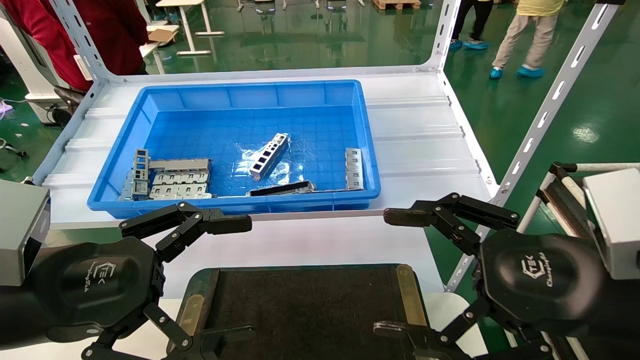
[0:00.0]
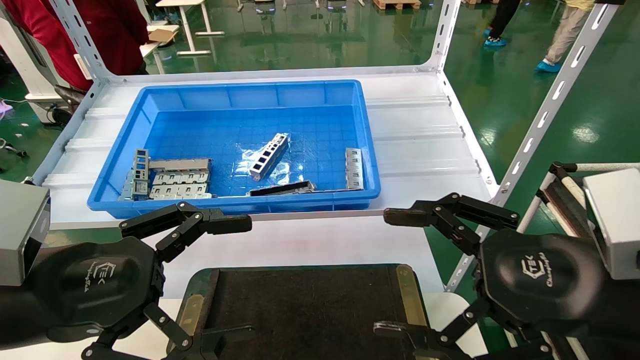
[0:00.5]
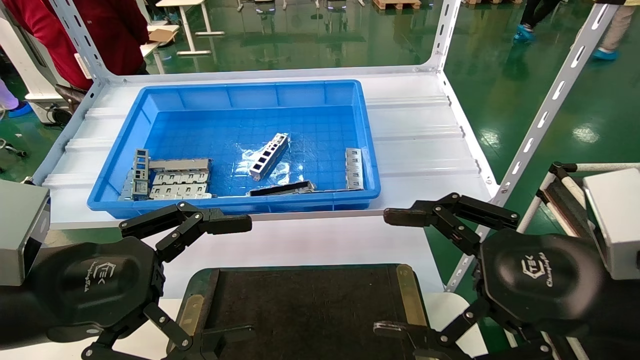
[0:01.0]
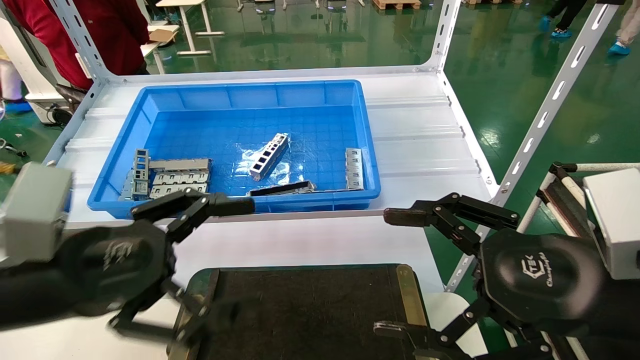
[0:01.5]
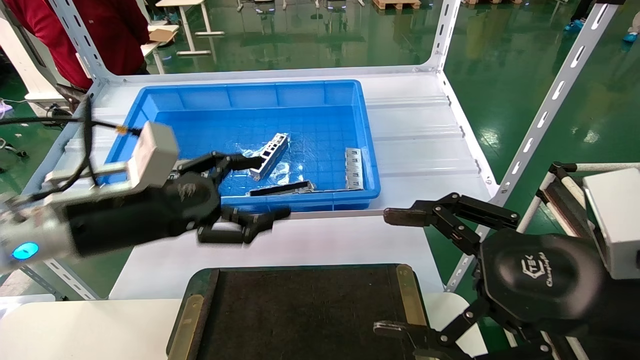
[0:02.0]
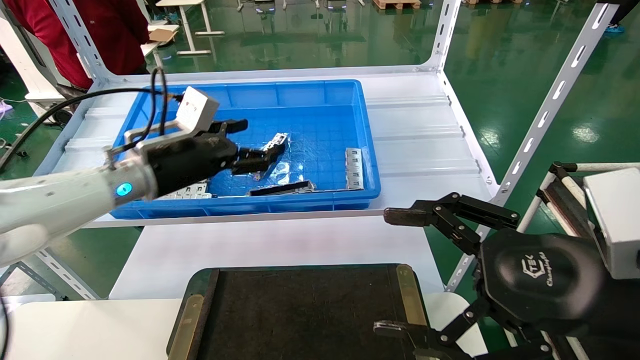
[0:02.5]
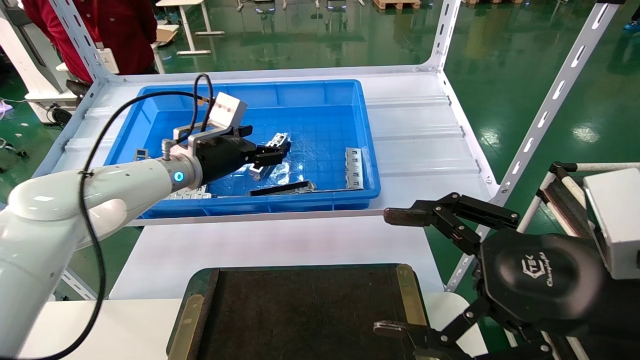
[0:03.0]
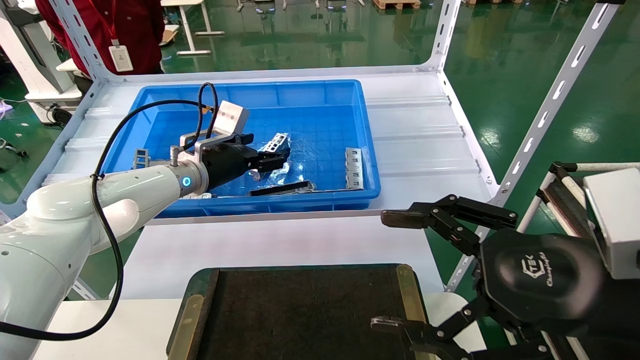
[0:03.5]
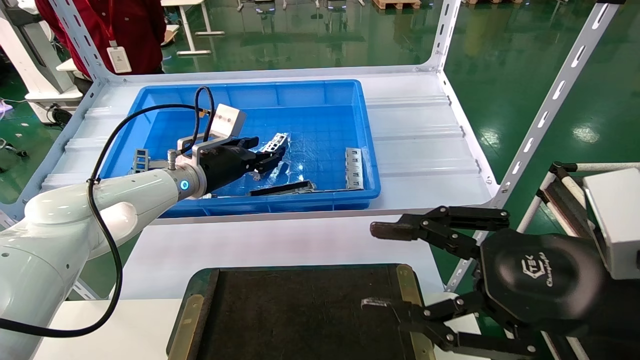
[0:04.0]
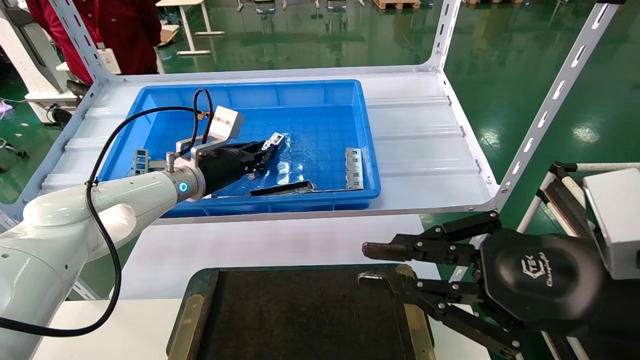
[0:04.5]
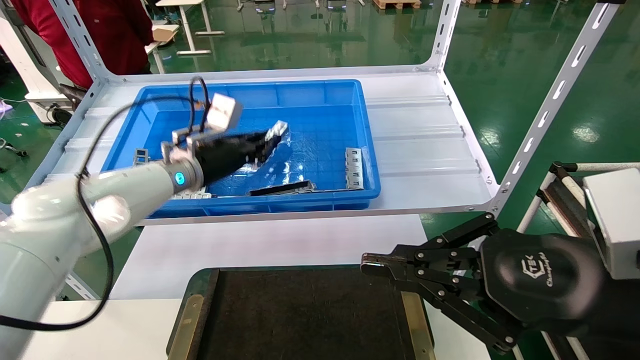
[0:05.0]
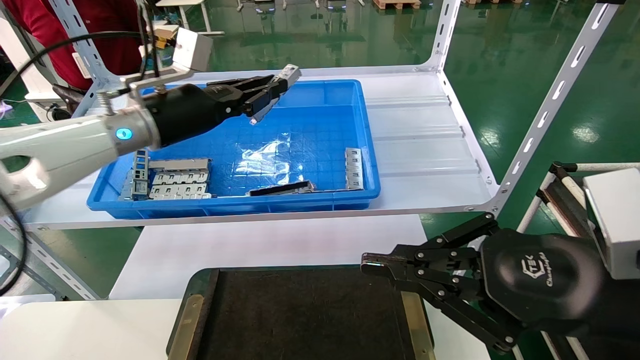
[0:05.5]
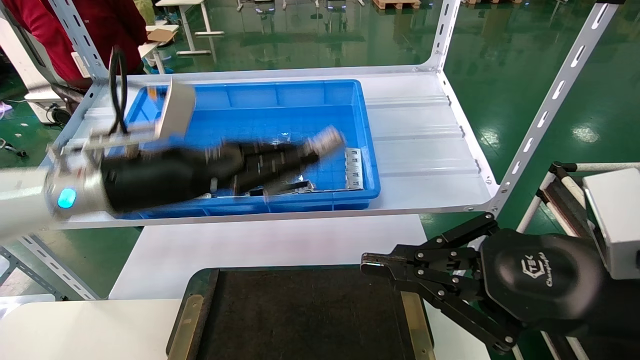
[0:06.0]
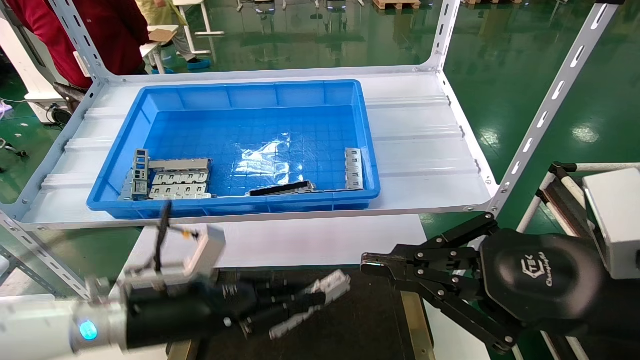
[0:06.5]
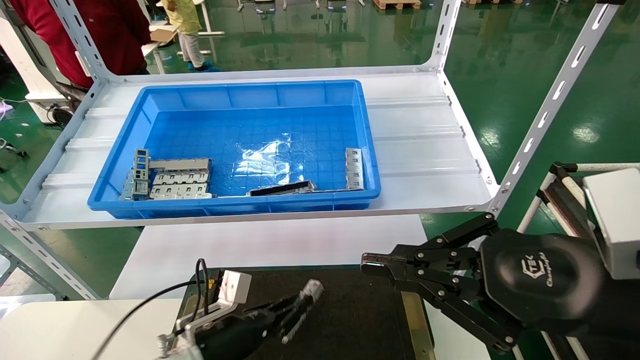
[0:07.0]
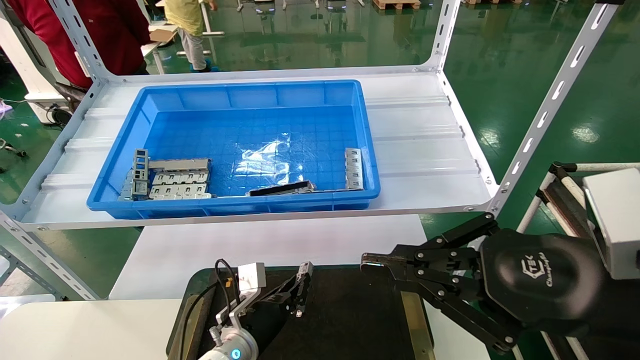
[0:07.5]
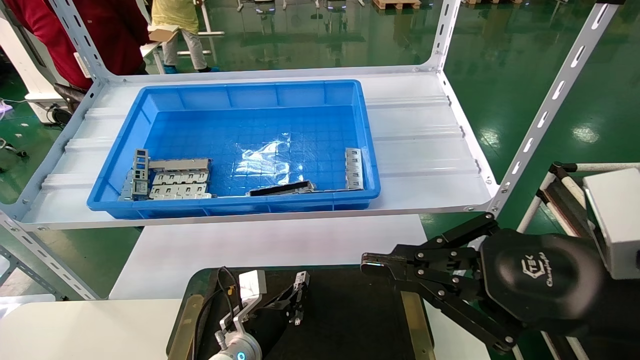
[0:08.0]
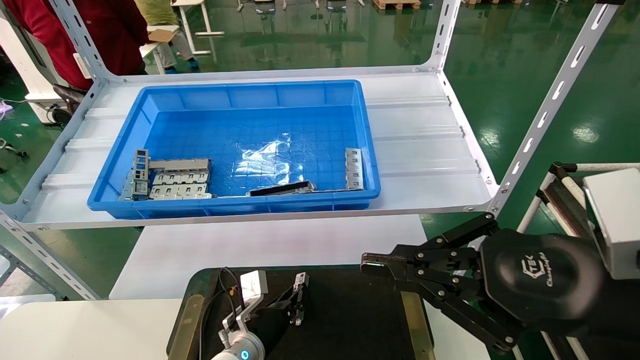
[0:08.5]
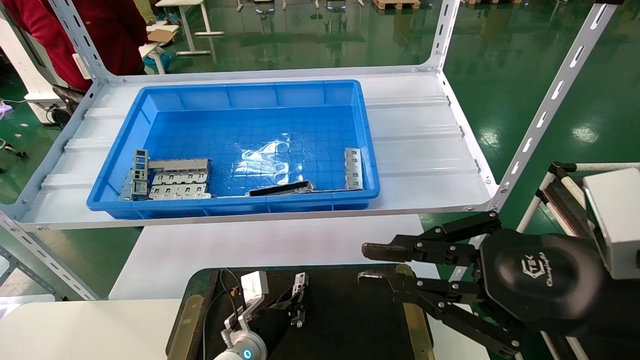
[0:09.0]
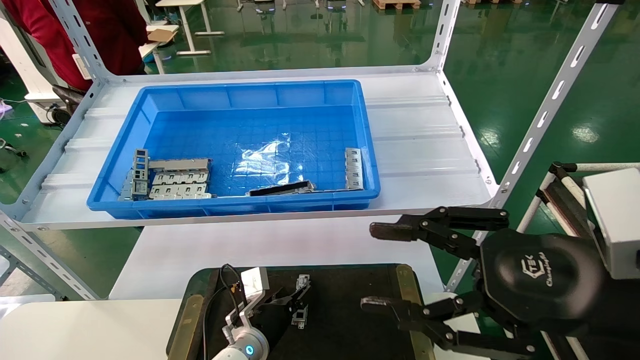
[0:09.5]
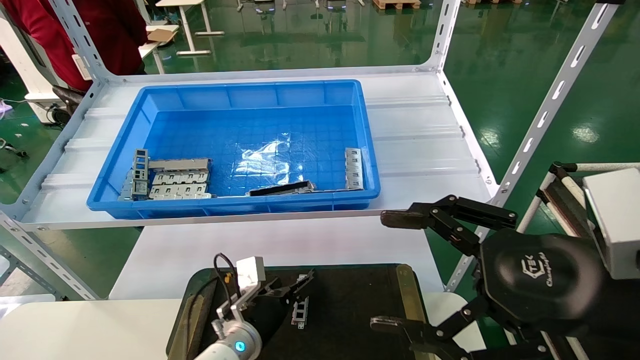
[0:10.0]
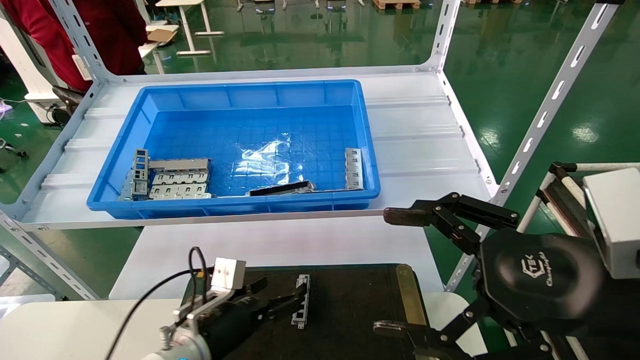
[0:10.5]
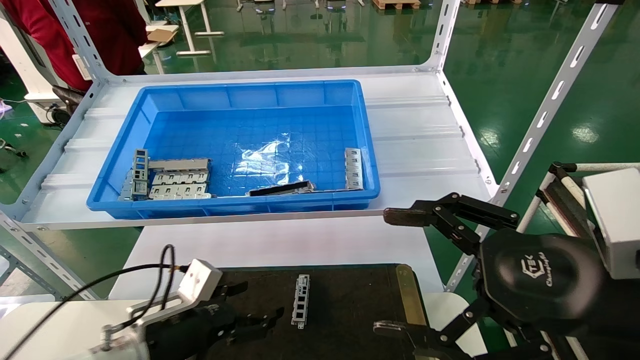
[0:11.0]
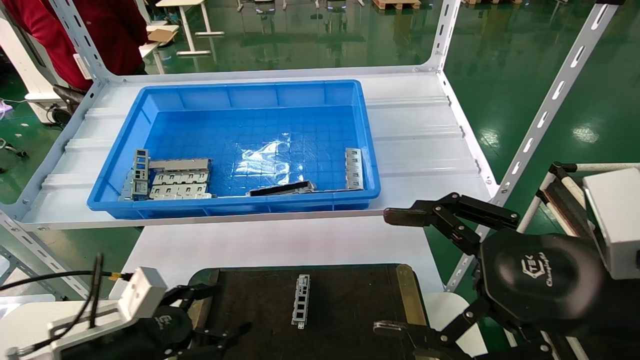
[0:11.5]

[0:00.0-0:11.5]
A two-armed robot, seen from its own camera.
Task of the whole recording: Grasp the part with one hand and place it on the black container.
Step, 0:01.5 to 0:05.0: Pick up the front USB bracket from the feeding area.
Step, 0:05.5 to 0:09.0: Place the front USB bracket into the box.
0:00.0 to 0:02.0: The left gripper moves forward, some 10 cm.
0:02.0 to 0:04.0: The left gripper travels forward by approximately 20 cm, and closes its fingers.
0:04.0 to 0:06.0: The right gripper closes its fingers. The left gripper is displaced backward by approximately 15 cm, and closes up.
0:06.0 to 0:07.5: The left gripper goes some 30 cm downward.
0:07.5 to 0:09.5: The right gripper opens up; the left gripper opens its fingers.
0:09.5 to 0:11.5: The right gripper opens up. Meanwhile the left gripper heads to the left, backward and upward, covering approximately 25 cm, and opens up.

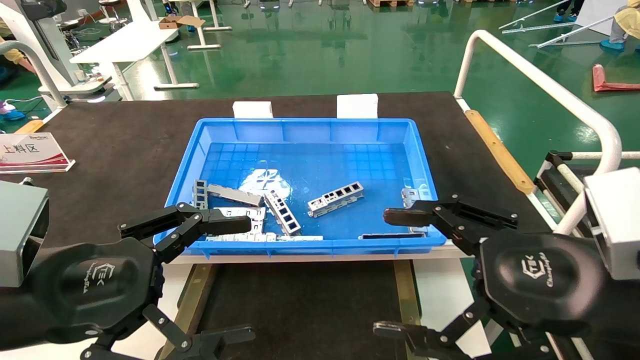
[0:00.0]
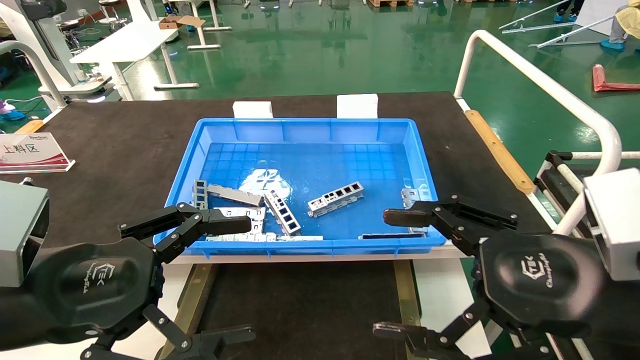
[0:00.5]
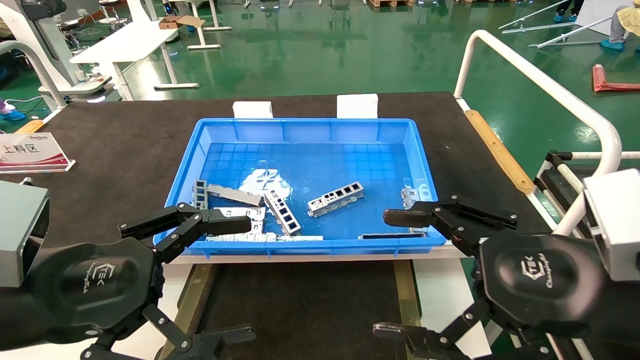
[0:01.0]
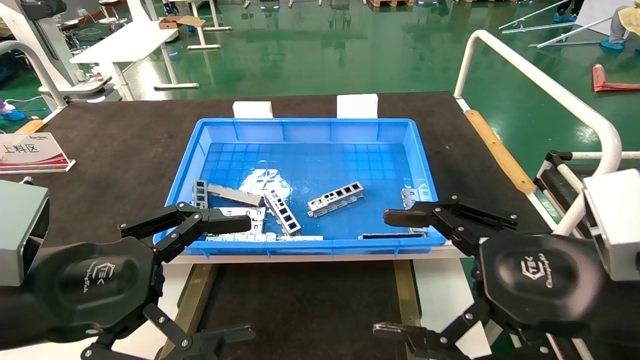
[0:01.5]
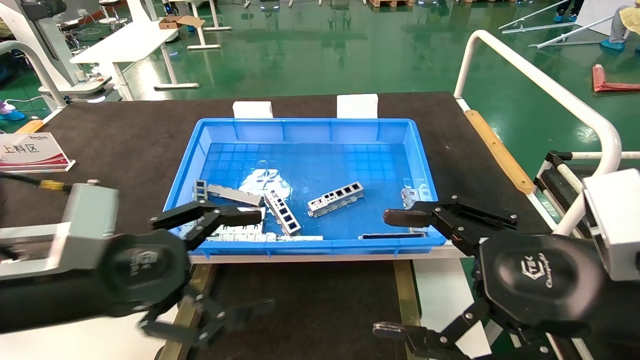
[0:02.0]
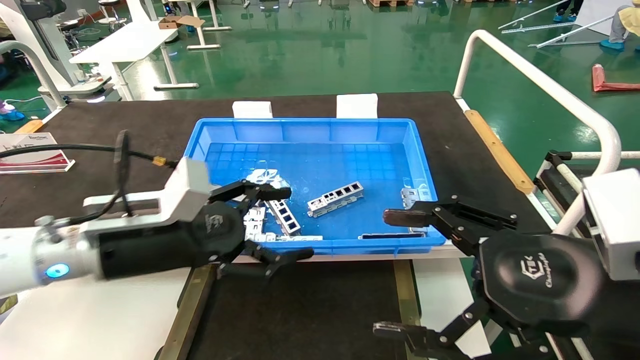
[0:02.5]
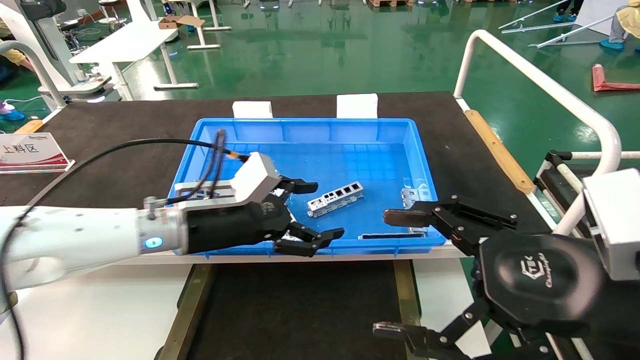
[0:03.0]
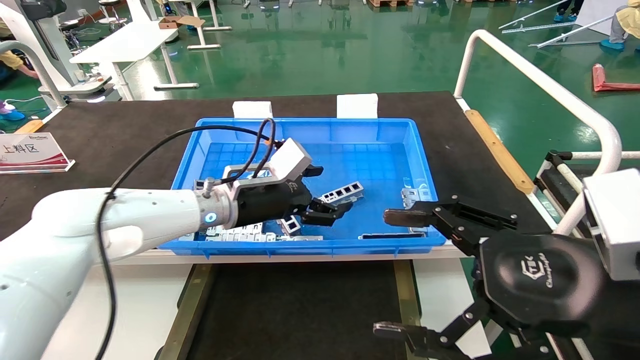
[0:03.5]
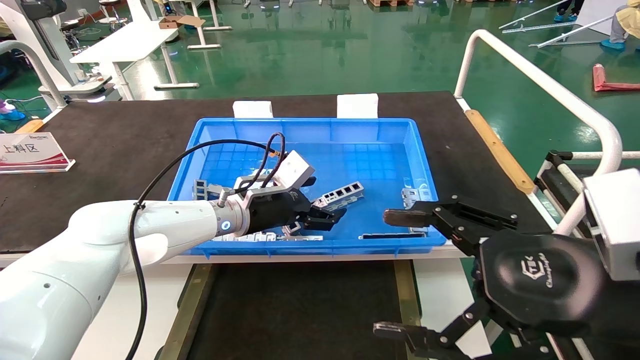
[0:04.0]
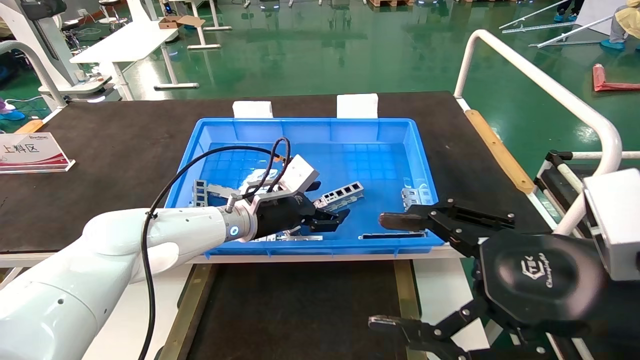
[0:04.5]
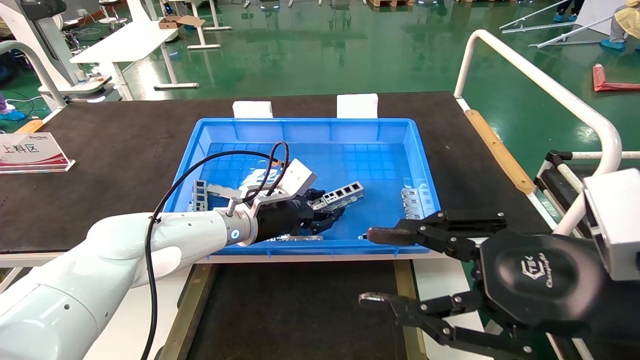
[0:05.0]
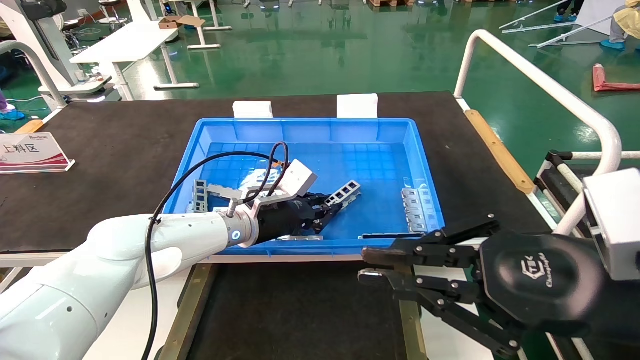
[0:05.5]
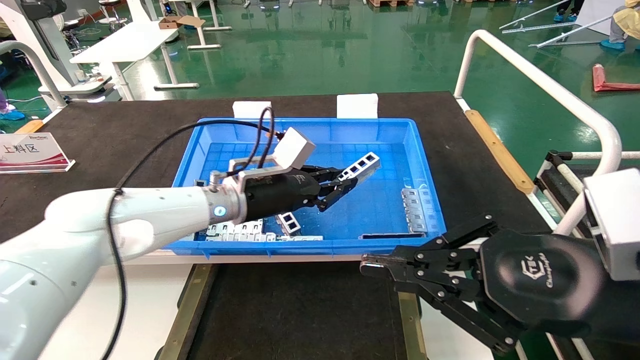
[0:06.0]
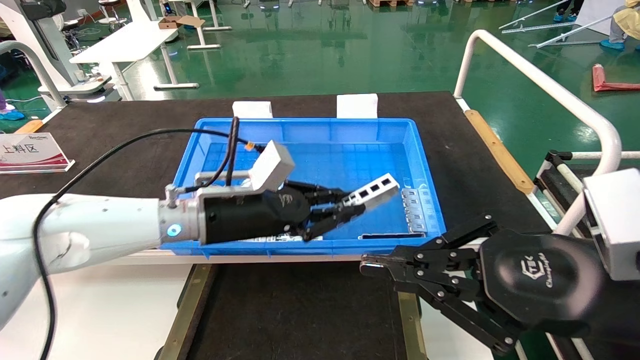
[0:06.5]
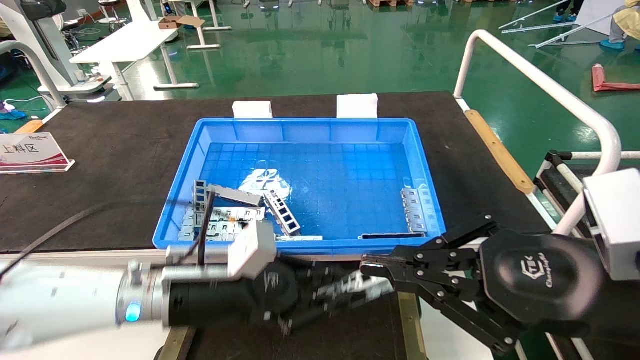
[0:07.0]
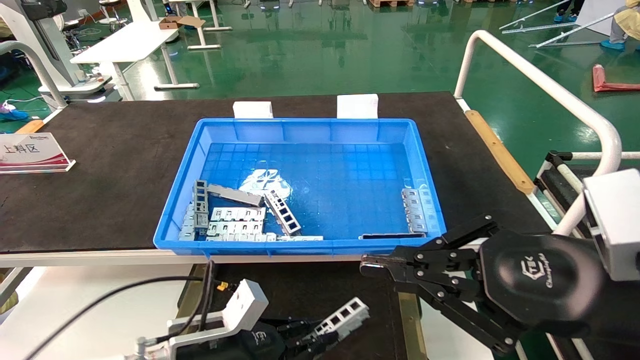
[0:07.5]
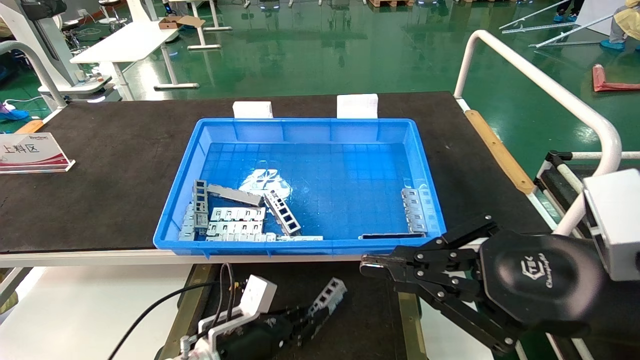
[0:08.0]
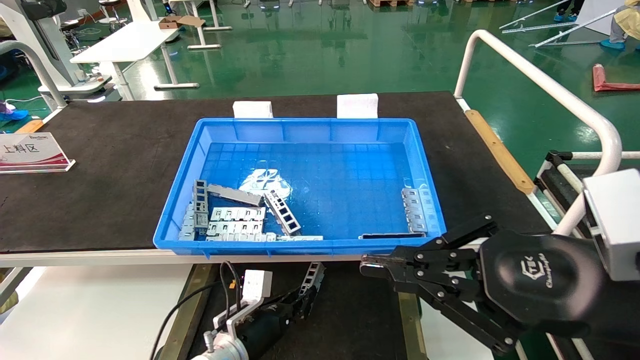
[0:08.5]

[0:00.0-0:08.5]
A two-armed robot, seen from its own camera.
Task of the whole recording: Grasp the part with one hand and place it on the black container.
Step, 0:02.0 to 0:05.5: Pick up the front USB bracket from the feeding area.
0:00.0 to 0:02.0: The grippers make only small movements.
0:02.0 to 0:04.0: The left gripper moves forward and to the right, some 25 cm.
0:04.0 to 0:06.5: The left gripper shifts roughly 10 cm backward, and closes up; the right gripper closes.
0:06.5 to 0:08.5: The left gripper moves downward, approximately 25 cm.
